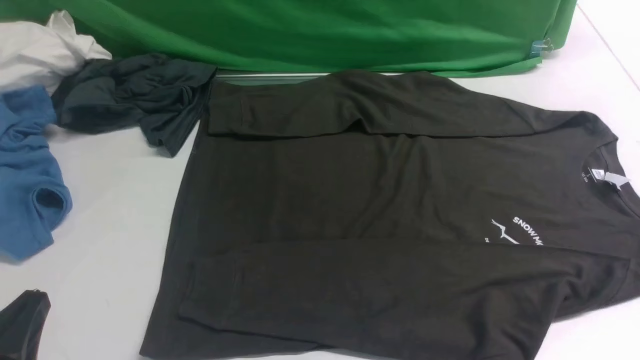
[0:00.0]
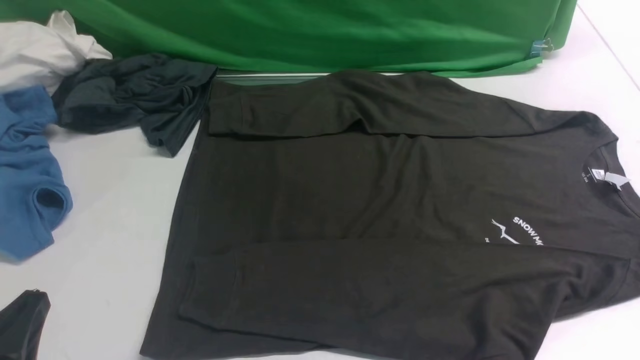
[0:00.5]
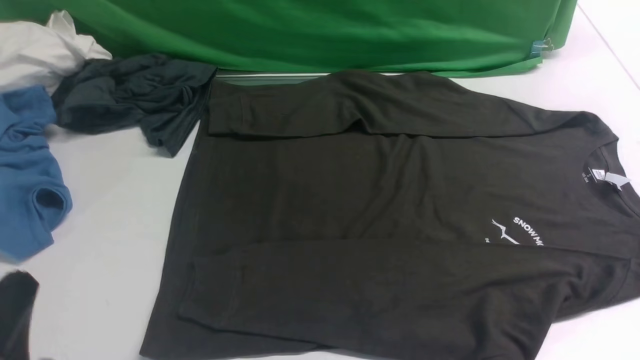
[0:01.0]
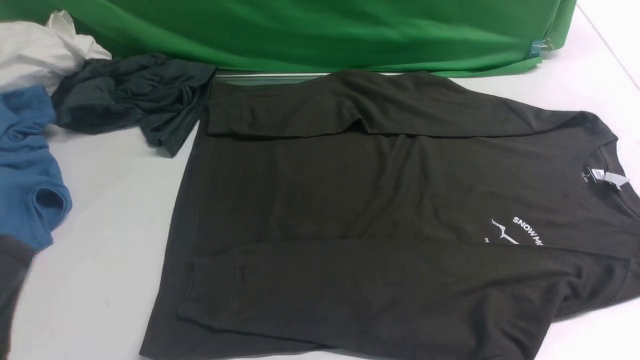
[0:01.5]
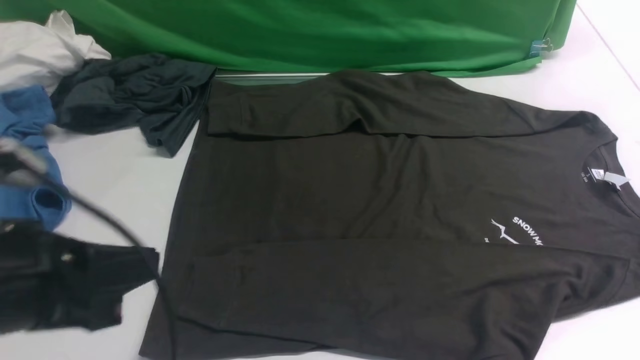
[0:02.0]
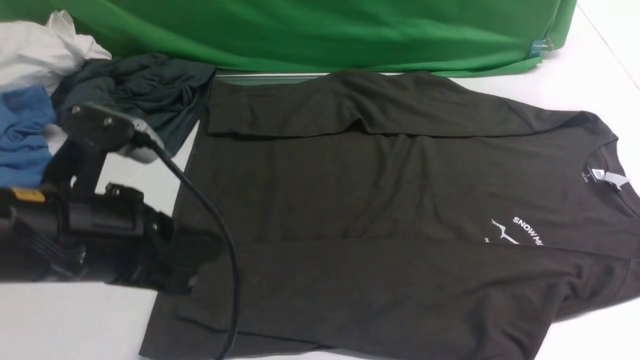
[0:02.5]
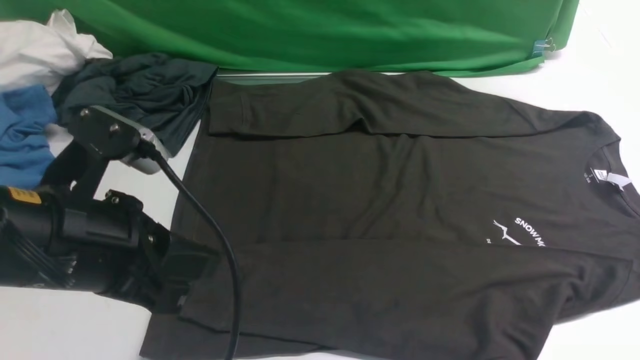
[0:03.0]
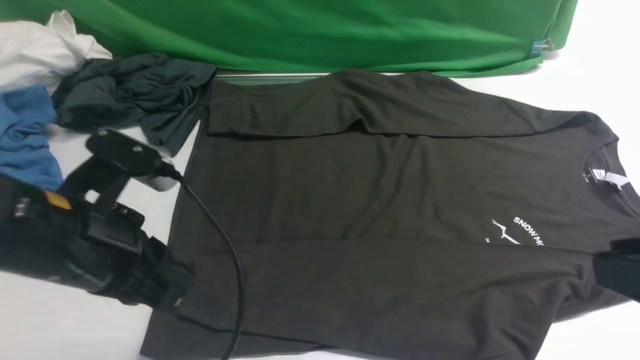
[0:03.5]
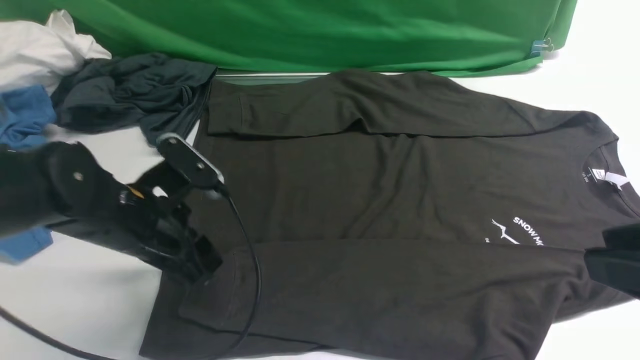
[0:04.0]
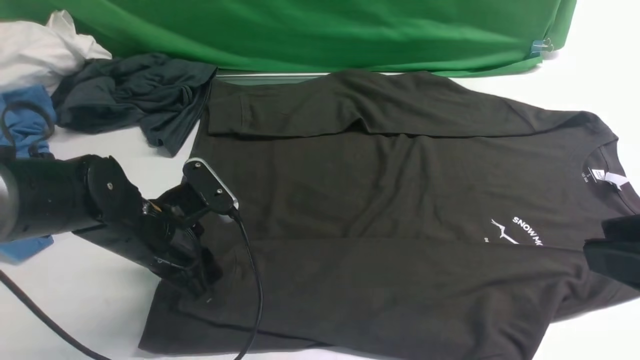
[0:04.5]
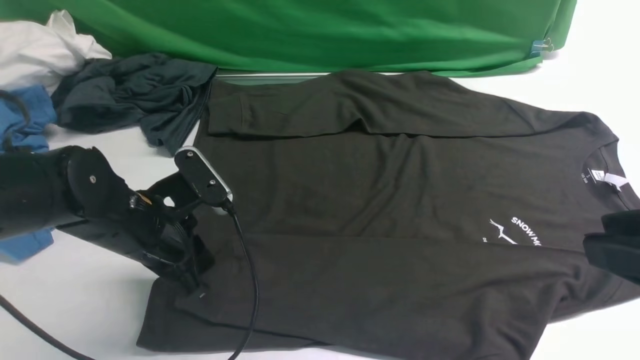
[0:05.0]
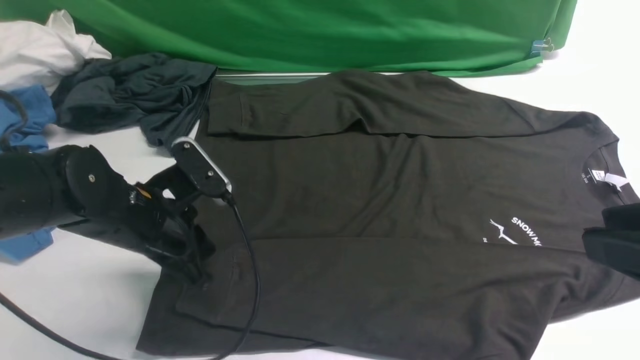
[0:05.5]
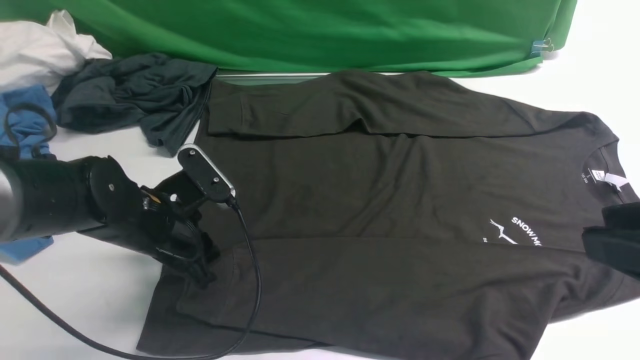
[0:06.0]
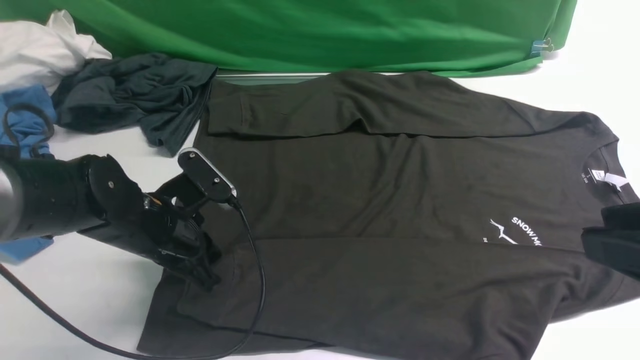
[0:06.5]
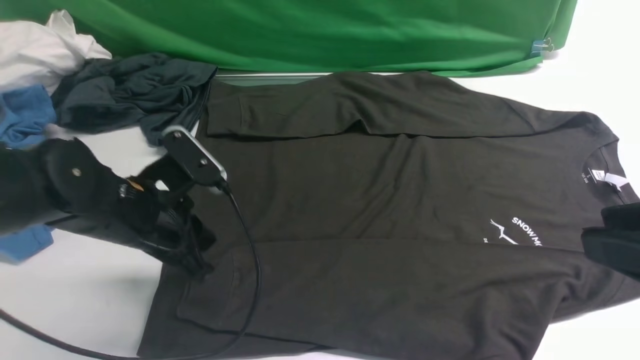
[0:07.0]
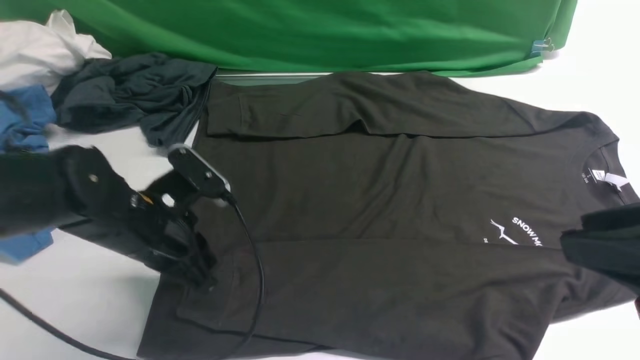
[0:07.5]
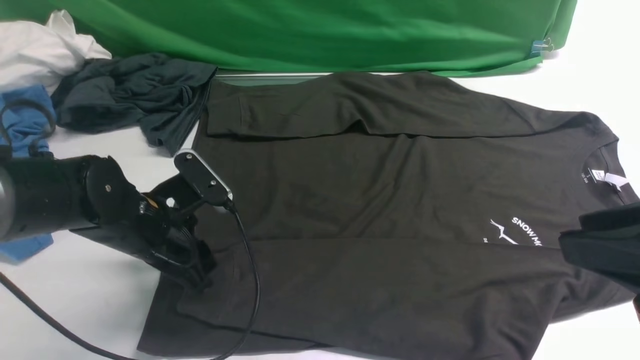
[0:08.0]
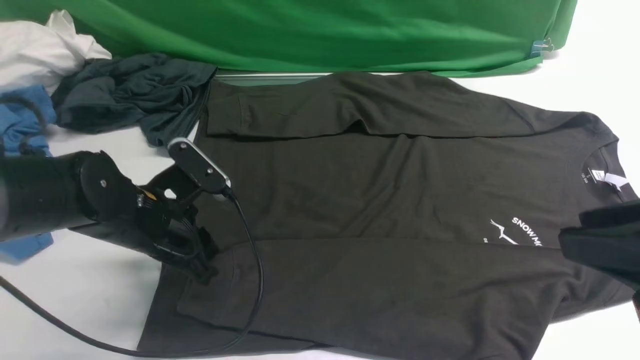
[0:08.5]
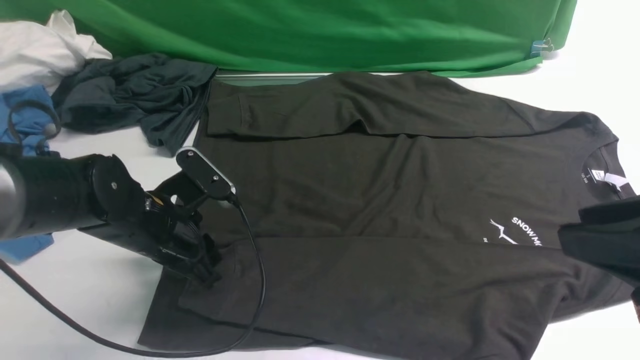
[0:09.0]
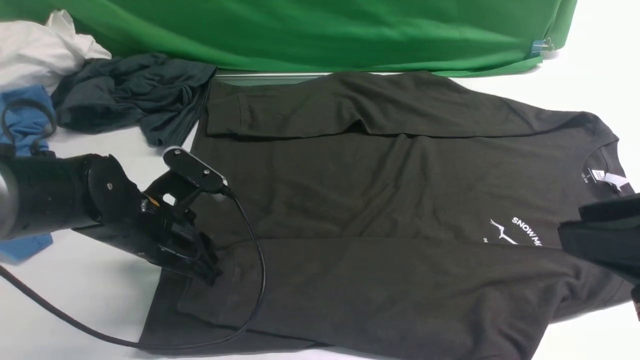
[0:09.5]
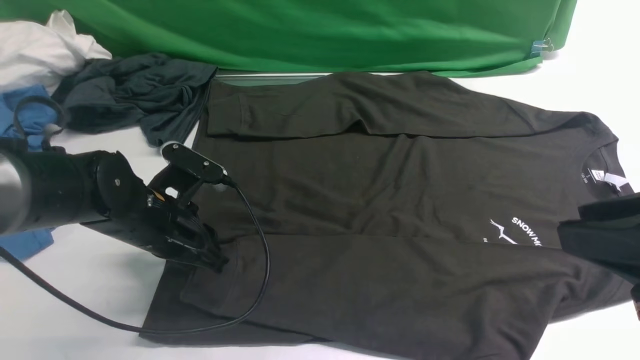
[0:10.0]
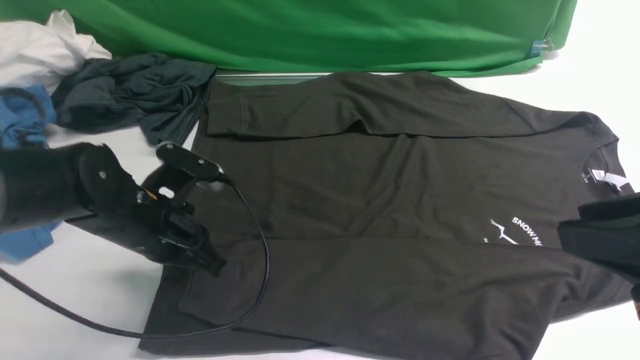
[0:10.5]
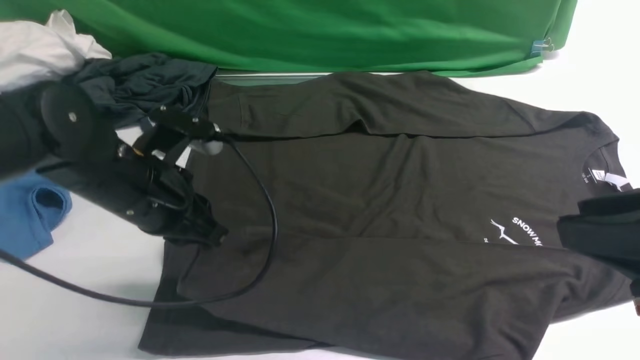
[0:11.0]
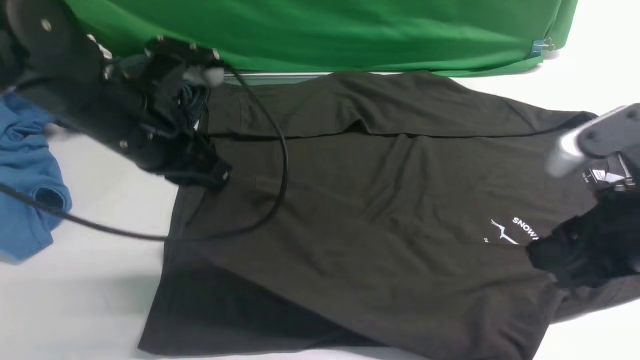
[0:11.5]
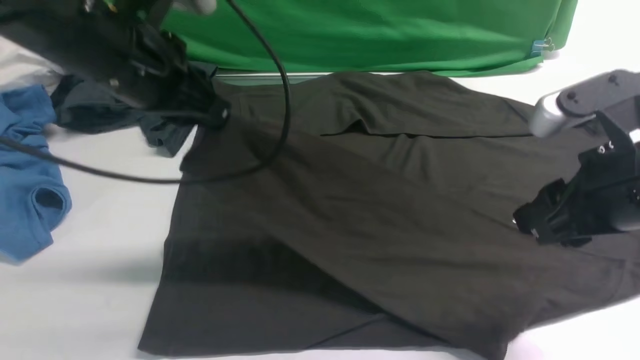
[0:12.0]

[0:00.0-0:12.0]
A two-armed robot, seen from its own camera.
Step, 0:00.0 to 0:10.5: use the left arm to clamp the cuff closest to it.
0:02.0 to 0:04.0: The right gripper shifts some 15 cm upward and to the left. Meanwhile the left gripper heads forward and downward, covering roughly 20 cm, and opens.
0:04.0 to 0:06.0: The left gripper shifts by roughly 5 cm, and closes, then reopens.
0:06.0 to 0:08.0: The left gripper closes, then reopens.
0:08.0 to 0:10.0: The grippers make only small movements.
0:10.0 to 0:12.0: The right gripper shifts approximately 10 cm forward. Meanwhile the left gripper is displaced upward by roughly 20 cm, and closes up.

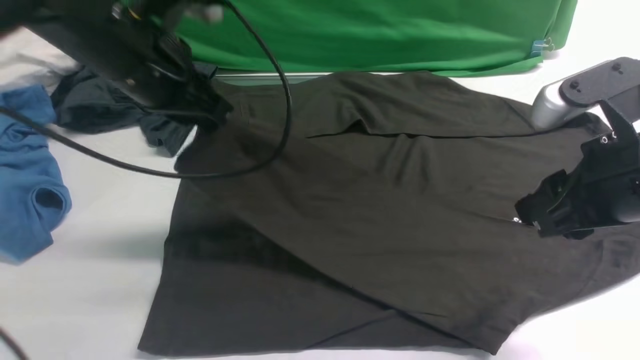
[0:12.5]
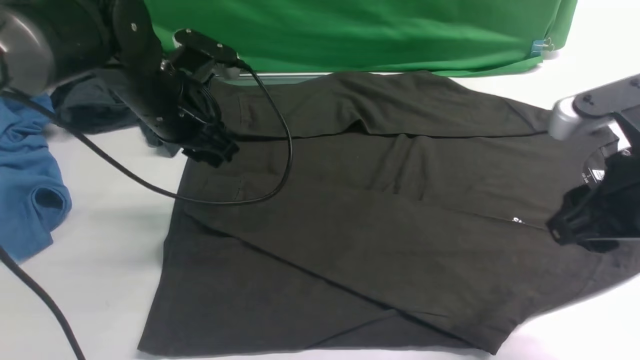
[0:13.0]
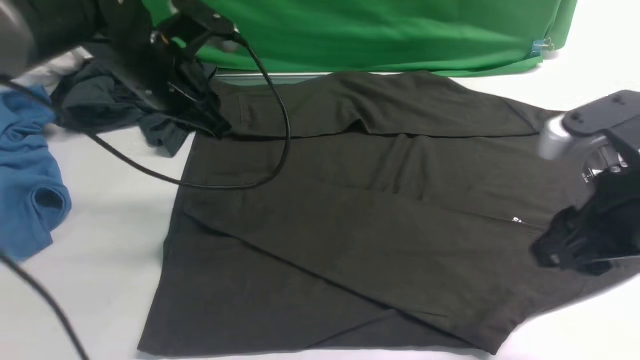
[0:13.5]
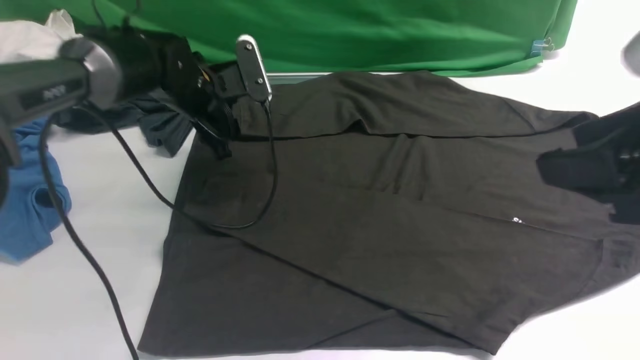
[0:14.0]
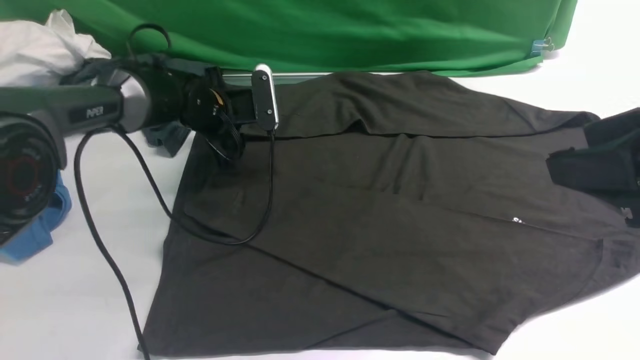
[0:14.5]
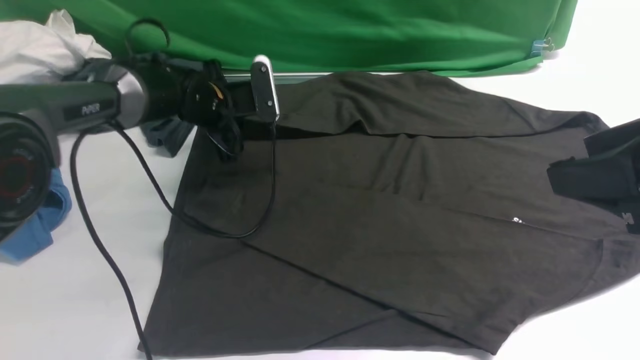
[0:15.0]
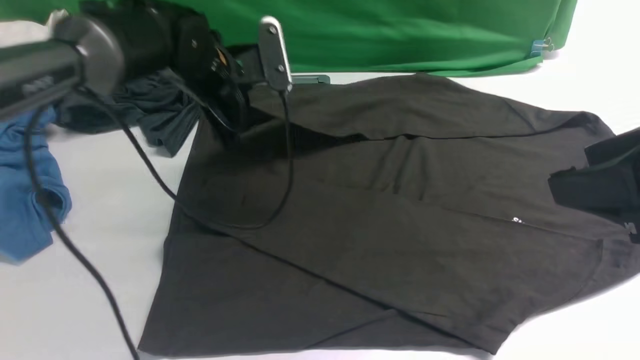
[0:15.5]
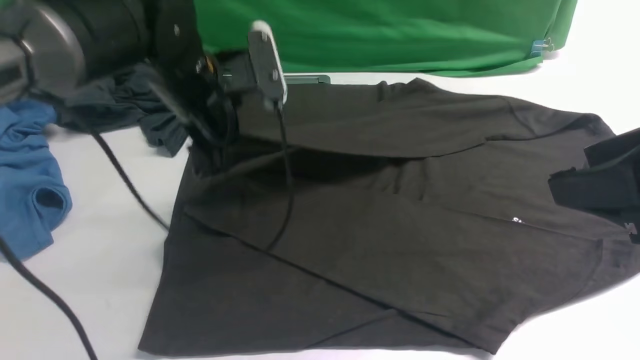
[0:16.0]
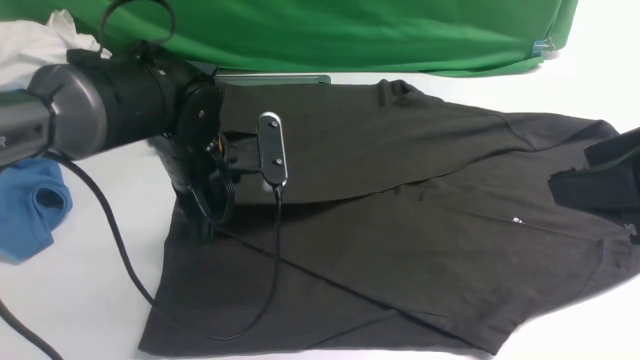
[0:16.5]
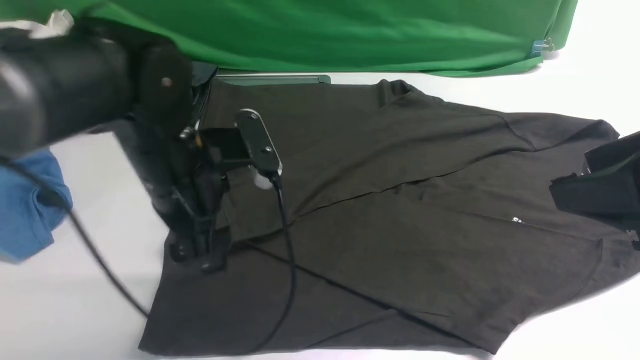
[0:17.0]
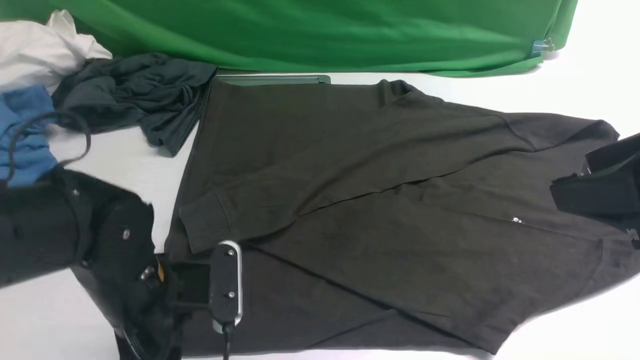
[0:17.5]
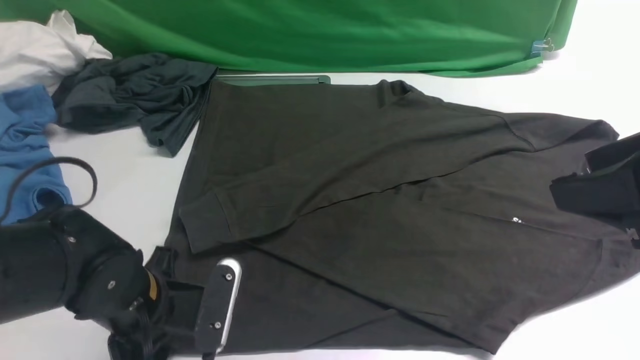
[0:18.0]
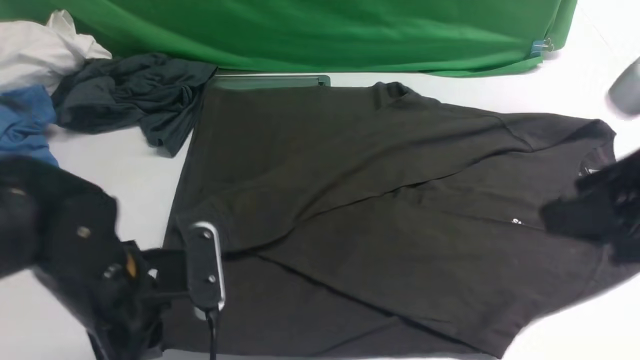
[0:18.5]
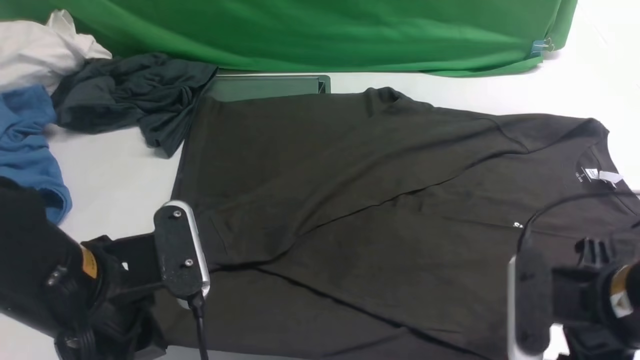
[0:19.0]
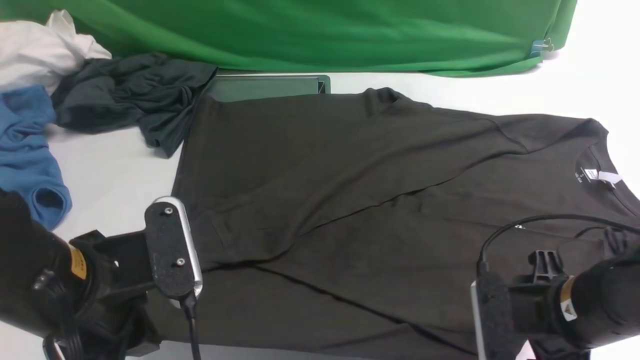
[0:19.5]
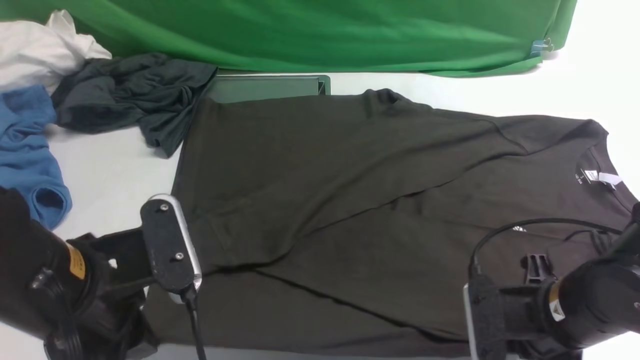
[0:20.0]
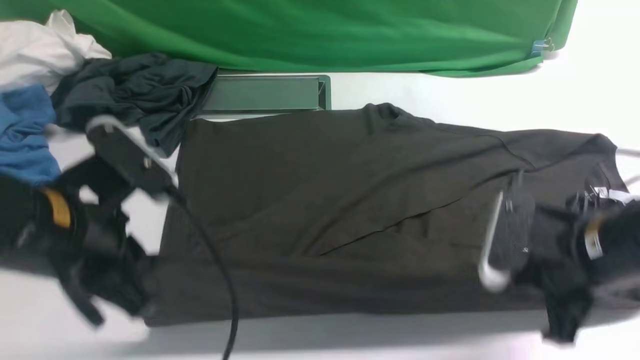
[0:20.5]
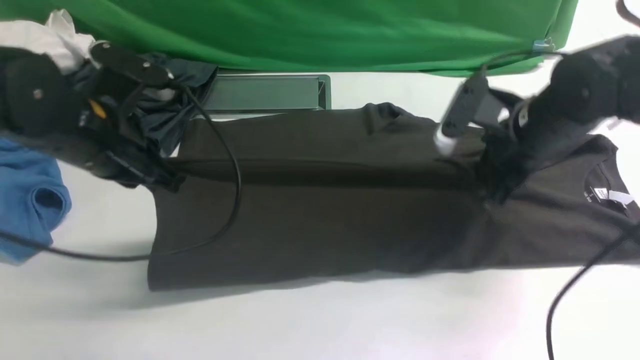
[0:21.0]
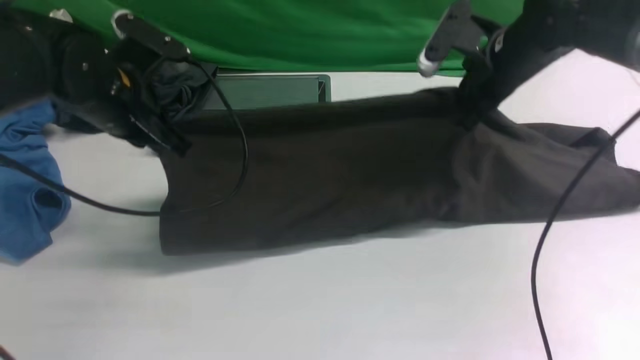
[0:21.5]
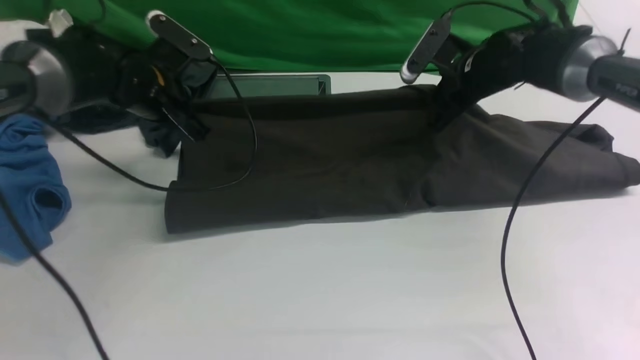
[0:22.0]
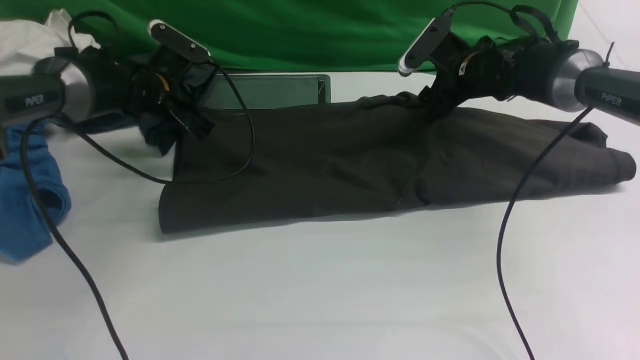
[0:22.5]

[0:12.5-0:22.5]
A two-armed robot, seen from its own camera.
Step, 0:13.5 to 0:15.0: use the left arm to clamp the cuff farthest from it.
Step, 0:15.5 to 0:16.5: use the left arm to drag and drop the cuff onto the cuff closest to the left arm.
Step, 0:17.0 to 0:20.0: use both arms simultaneously to clamp the lower edge of the clothing fabric.
0:12.5 to 0:14.5: The right gripper moves upward and backward, approximately 10 cm. The left gripper heads downward and forward, covering approximately 20 cm, and opens.
0:14.5 to 0:16.5: The left gripper moves backward and upward, about 15 cm, and closes its fingers.
0:16.5 to 0:18.5: The left gripper is displaced backward by about 15 cm, and opens, then closes again.
0:18.5 to 0:20.5: The right gripper shifts approximately 15 cm downward, and closes its fingers, while the left gripper moves upward, about 10 cm.
0:20.5 to 0:22.5: The grippers both shift forward by approximately 30 cm. The right gripper opens up.
